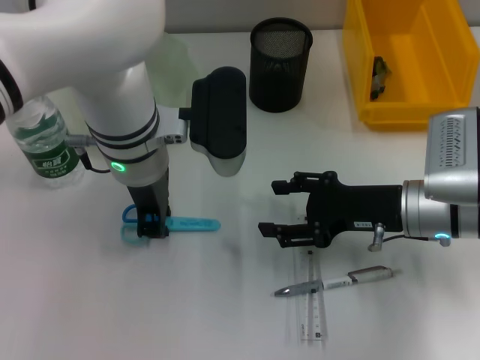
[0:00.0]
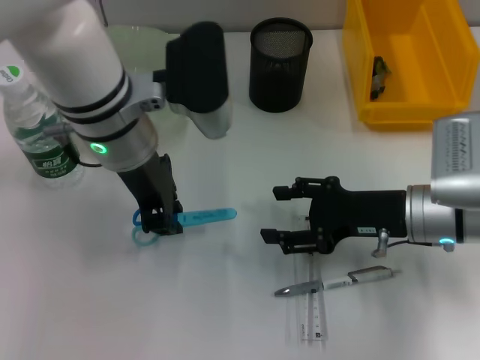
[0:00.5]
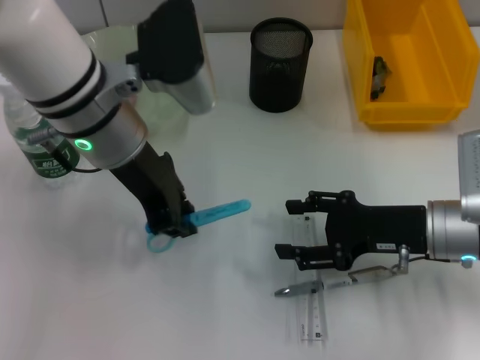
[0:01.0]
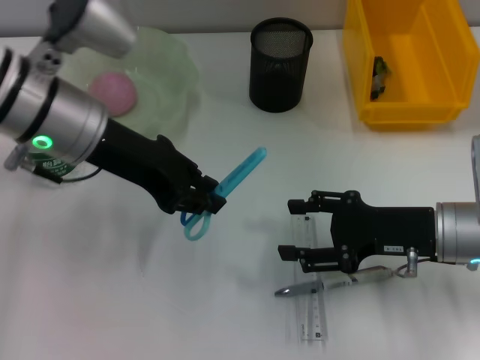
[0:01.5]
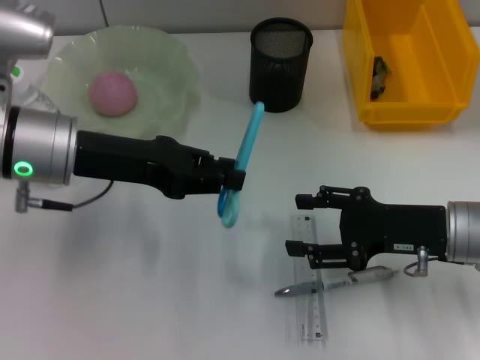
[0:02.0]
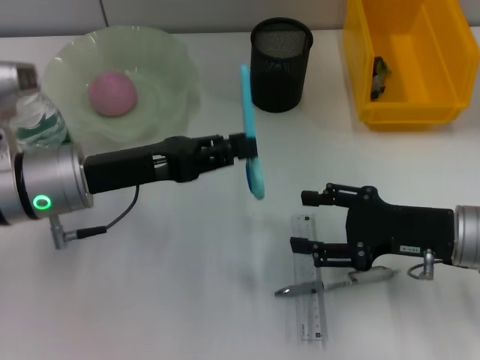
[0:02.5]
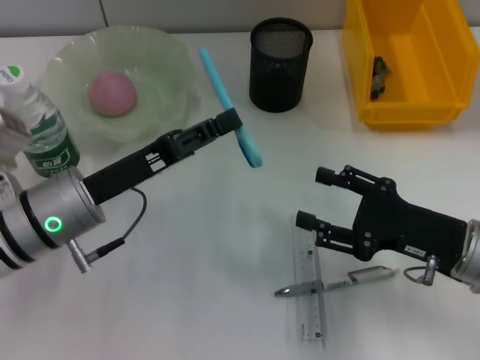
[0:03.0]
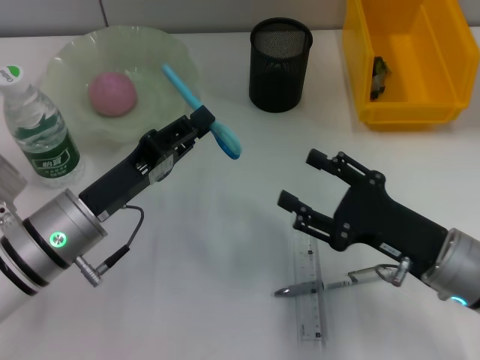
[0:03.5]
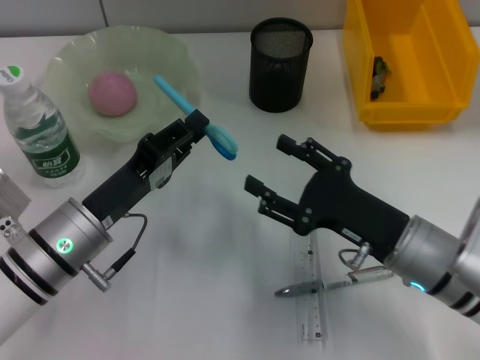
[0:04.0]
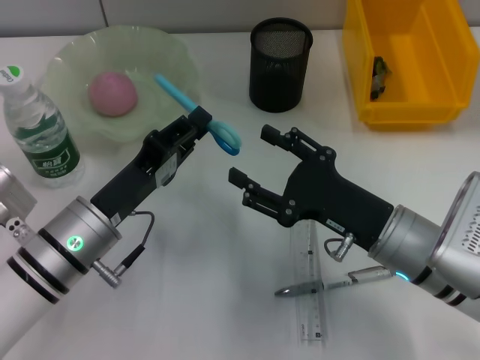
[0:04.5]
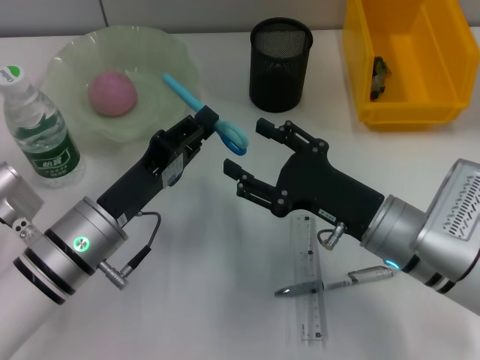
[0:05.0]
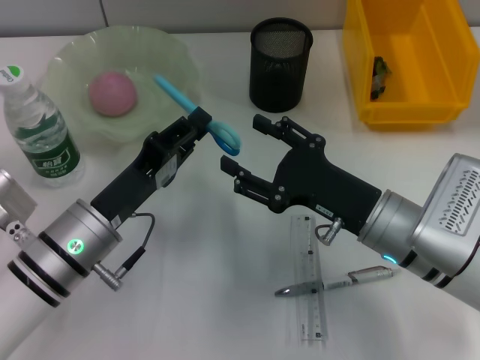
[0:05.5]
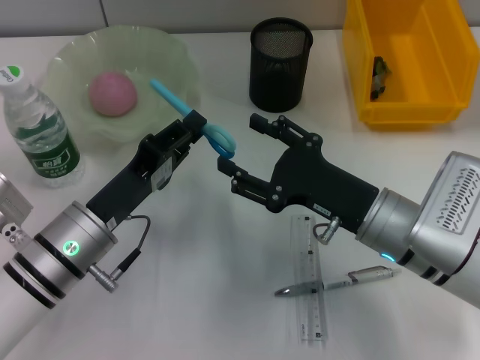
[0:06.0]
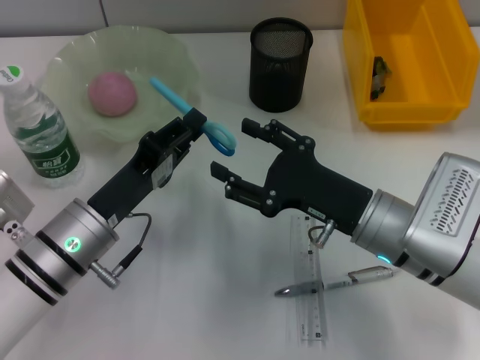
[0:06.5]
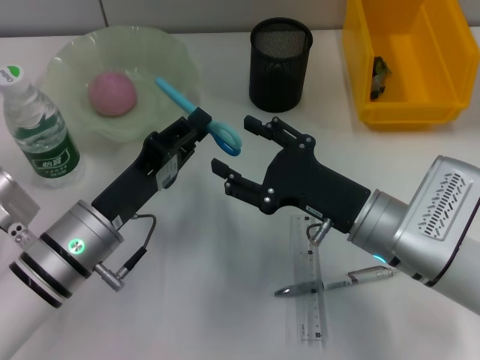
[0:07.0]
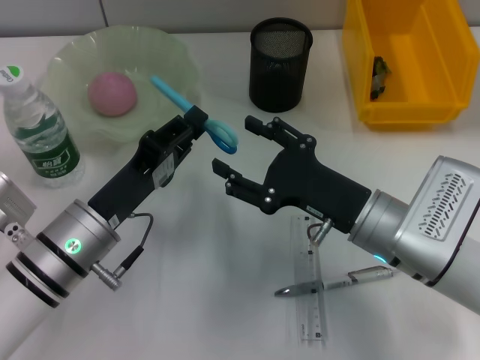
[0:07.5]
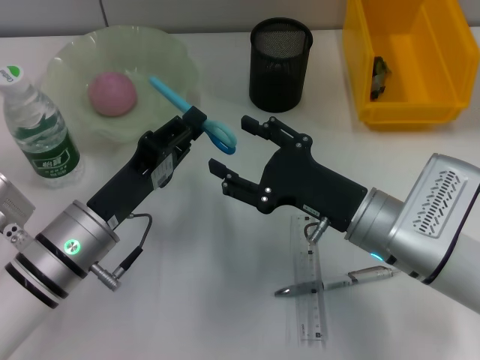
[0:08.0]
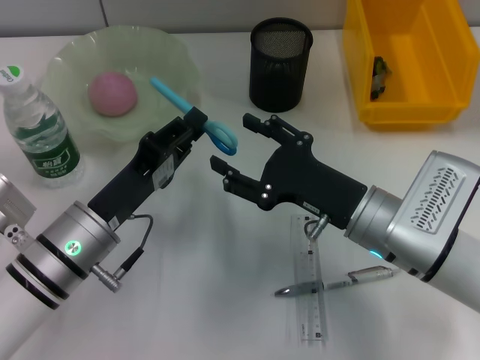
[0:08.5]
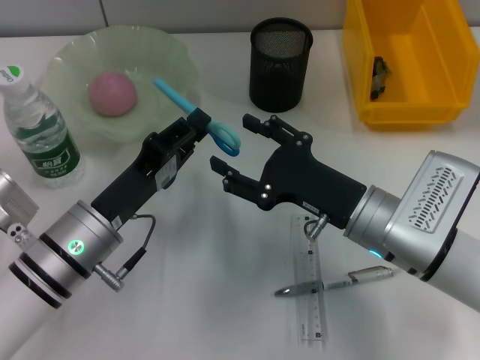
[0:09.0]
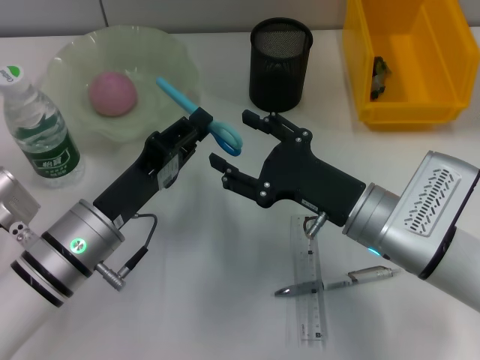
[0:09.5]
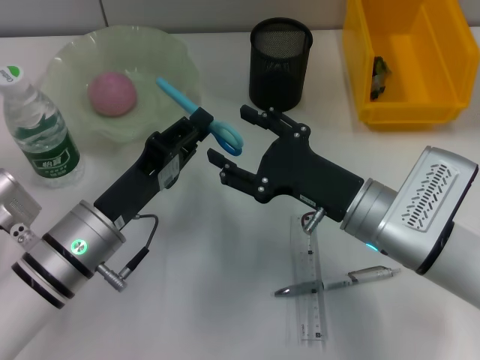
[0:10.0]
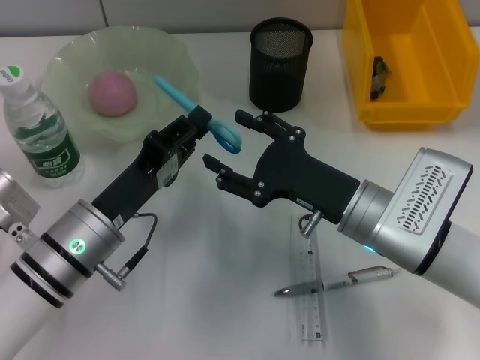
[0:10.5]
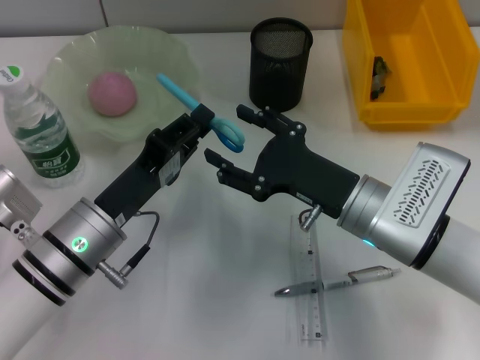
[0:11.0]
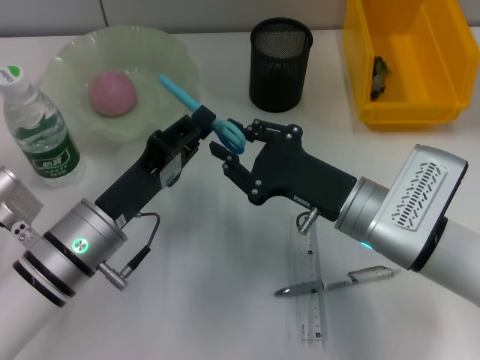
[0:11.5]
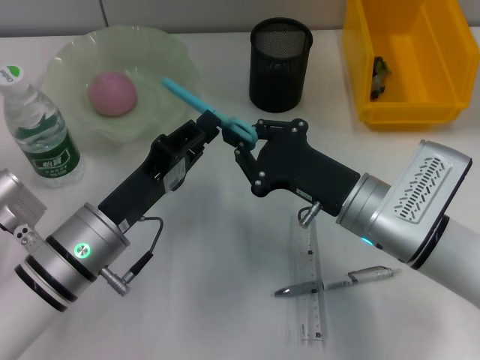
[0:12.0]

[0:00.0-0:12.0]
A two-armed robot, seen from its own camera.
0:00.0 to 0:02.0: The left gripper shifts approximately 10 cm to the left.
0:02.0 to 0:04.0: The right gripper travels to the left by about 5 cm. The left gripper travels downward and backward by some 15 cm.
0:04.0 to 0:06.0: The grippers make only small movements.
0:06.0 to 0:08.0: Both grippers stay about where they are.
0:08.0 to 0:10.0: Both grippers stay about where they are.
0:10.0 to 0:12.0: The right gripper closes up.

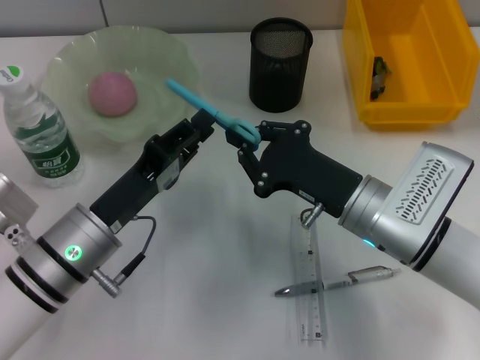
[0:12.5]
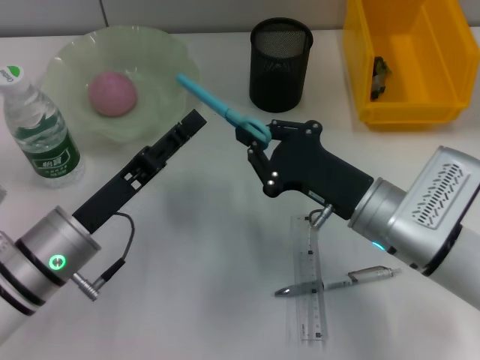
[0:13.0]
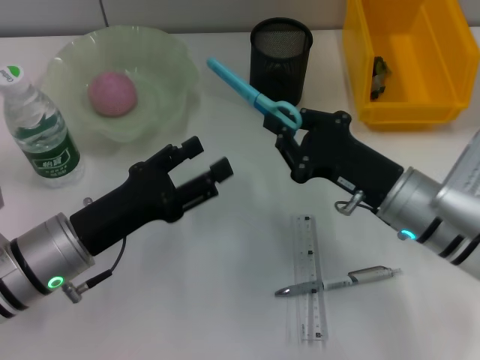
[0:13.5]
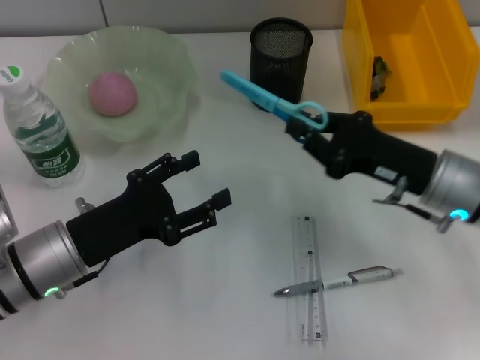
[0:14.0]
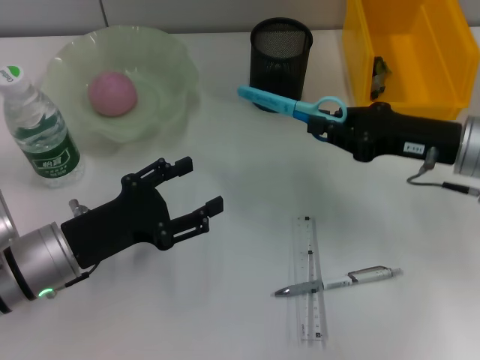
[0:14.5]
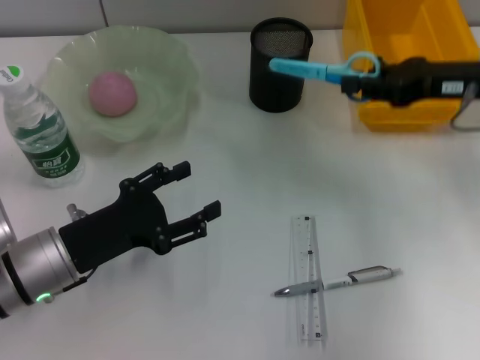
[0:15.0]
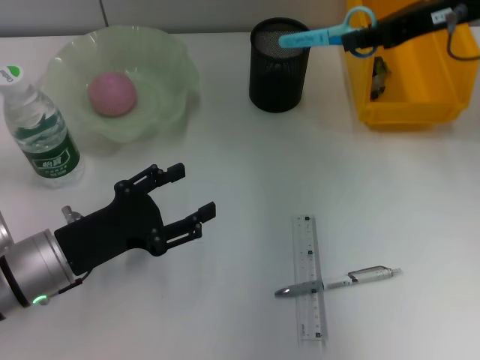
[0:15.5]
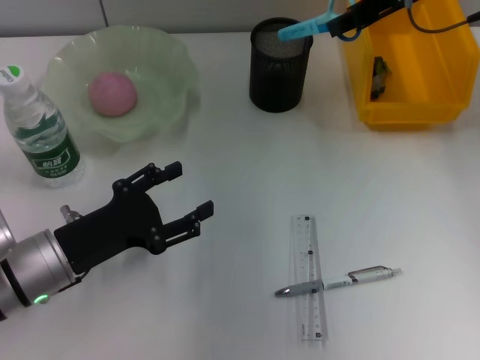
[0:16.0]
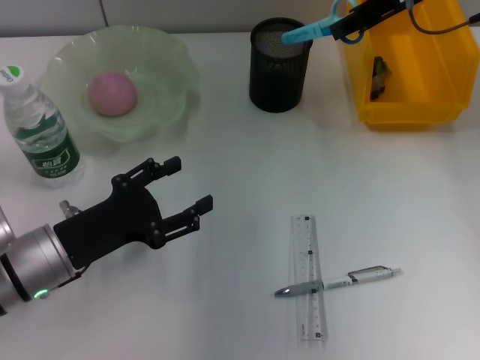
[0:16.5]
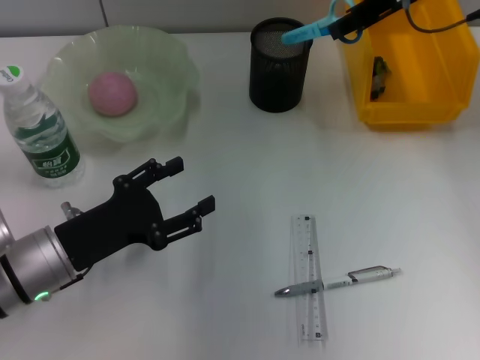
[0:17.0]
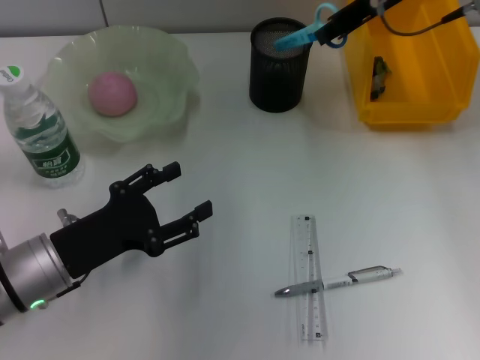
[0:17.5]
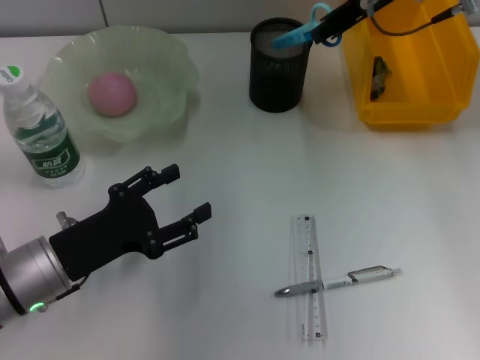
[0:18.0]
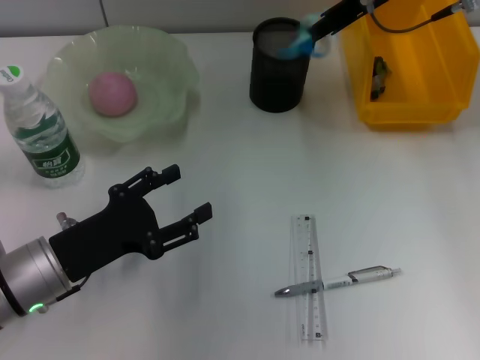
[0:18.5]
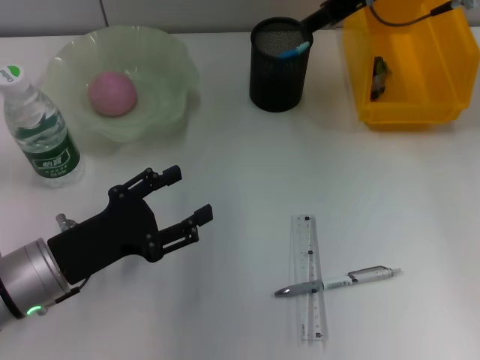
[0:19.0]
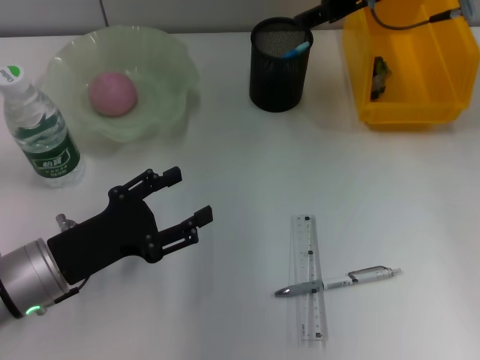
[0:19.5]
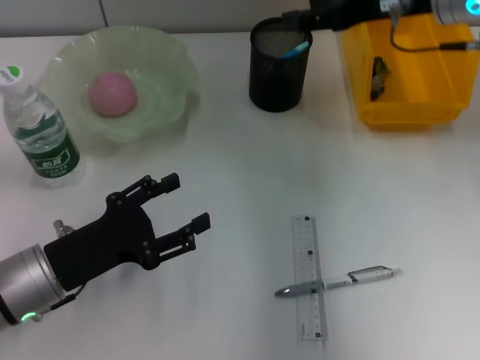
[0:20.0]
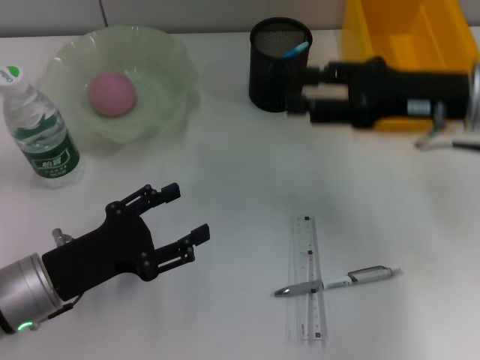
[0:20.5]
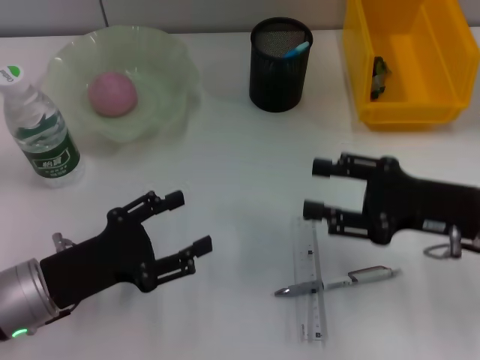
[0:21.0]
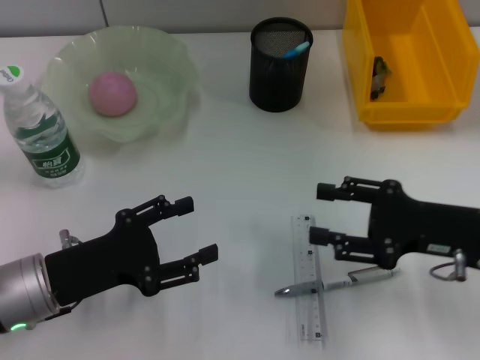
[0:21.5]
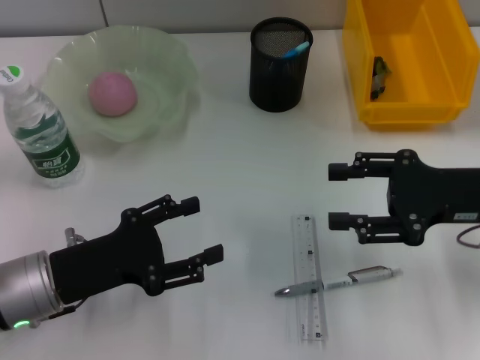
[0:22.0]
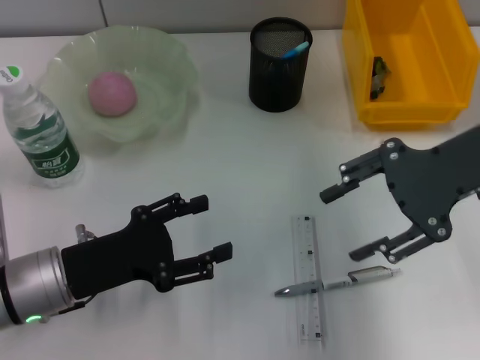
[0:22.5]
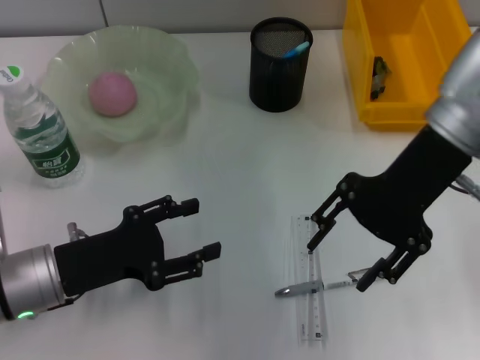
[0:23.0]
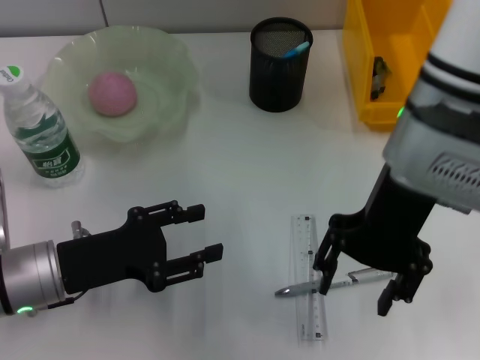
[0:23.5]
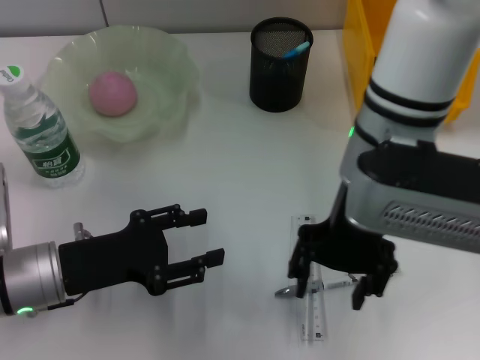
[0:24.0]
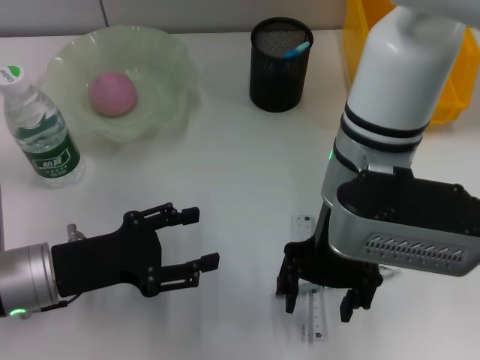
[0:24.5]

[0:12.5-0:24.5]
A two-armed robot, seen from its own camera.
Step, 0:13.0 to 0:19.0: Place the blue scissors into the pen holder with the right hand.
0:12.5 to 0:14.5: The left gripper opens its fingers. Meanwhile the right gripper goes about 15 cm to the right, forward and upward.
0:14.5 to 0:16.5: The right gripper goes approximately 20 cm upward and forward.
0:16.5 to 0:18.5: The grippers move only a little.
0:18.5 to 0:20.5: The right gripper goes some 15 cm backward, downward and to the right, and opens up.
0:20.5 to 0:22.5: The right gripper travels downward and back again, roughly 10 cm each way.
0:22.5 to 0:24.5: The right gripper travels to the left by about 15 cm.

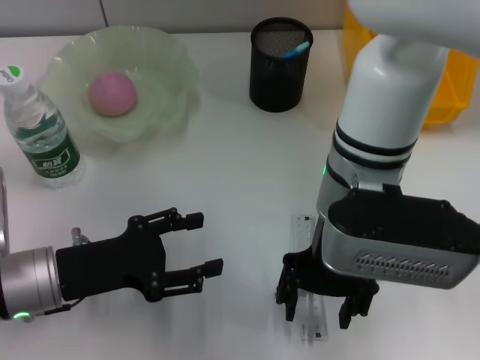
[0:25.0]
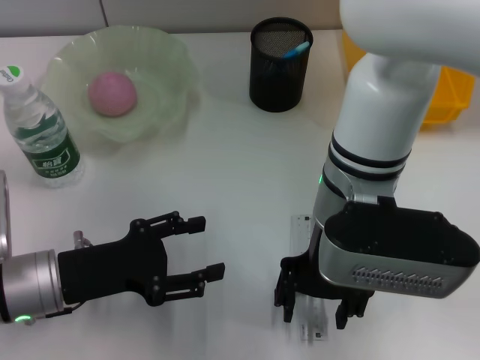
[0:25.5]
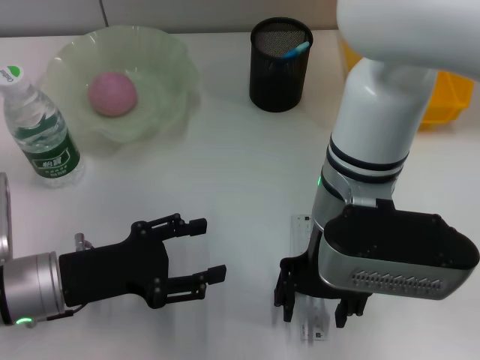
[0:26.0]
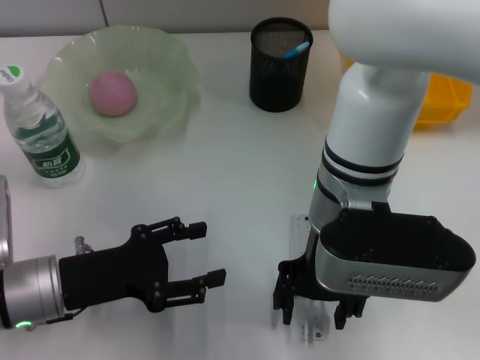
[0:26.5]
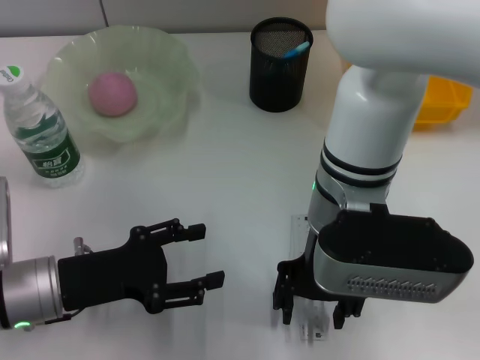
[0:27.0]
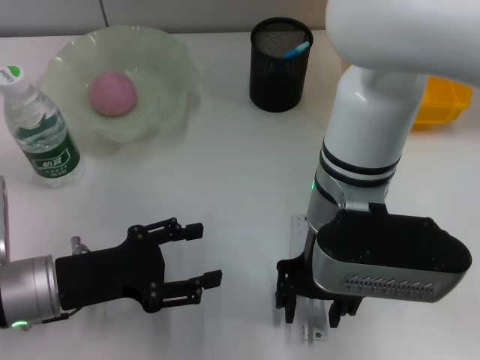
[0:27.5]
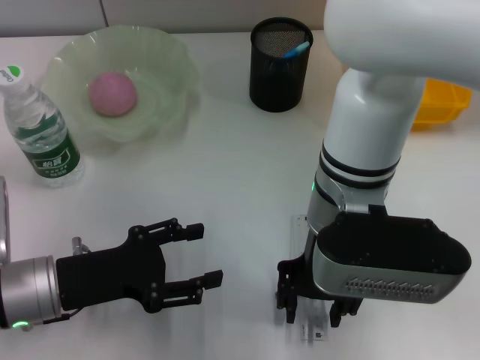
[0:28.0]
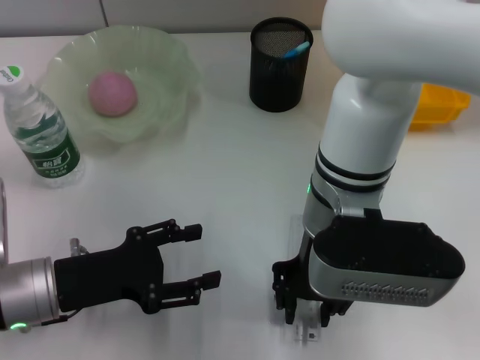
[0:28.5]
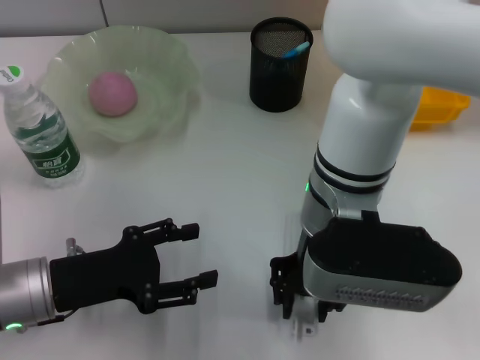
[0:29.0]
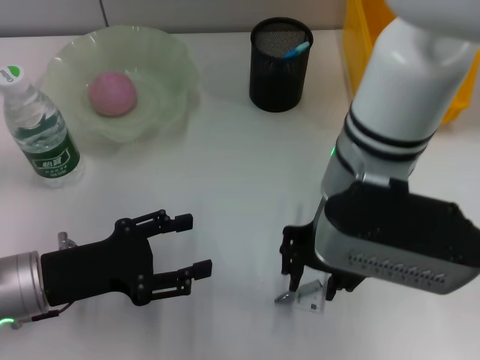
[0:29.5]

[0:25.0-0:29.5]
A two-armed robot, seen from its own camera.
Step, 0:25.0 to 0:28.5: Grab the ruler with the right hand.
0:27.0 to 0:29.5: The right gripper closes.
